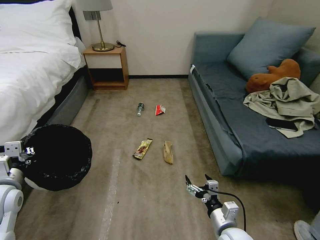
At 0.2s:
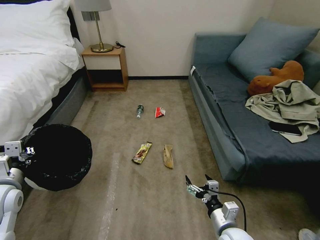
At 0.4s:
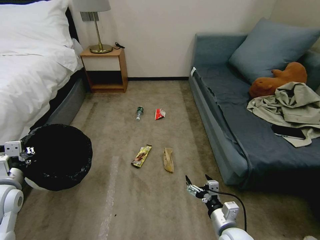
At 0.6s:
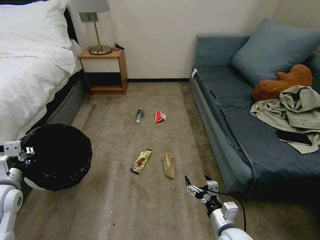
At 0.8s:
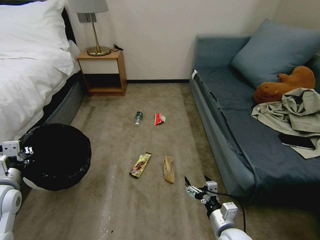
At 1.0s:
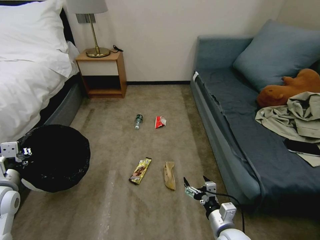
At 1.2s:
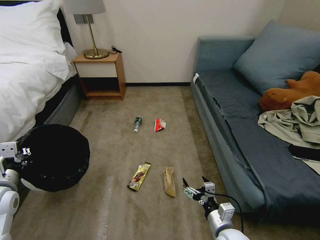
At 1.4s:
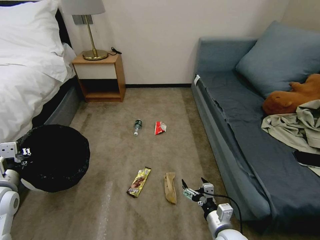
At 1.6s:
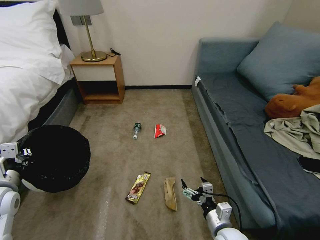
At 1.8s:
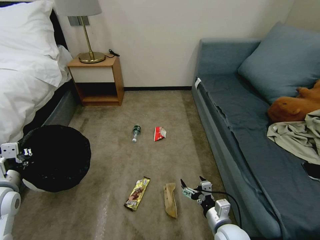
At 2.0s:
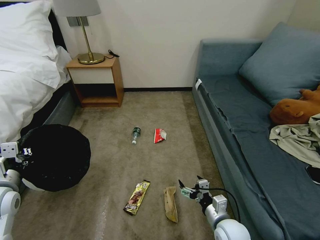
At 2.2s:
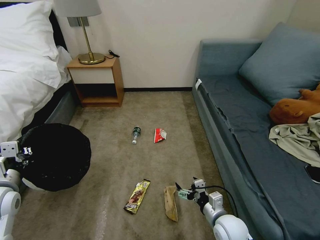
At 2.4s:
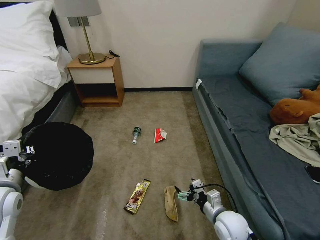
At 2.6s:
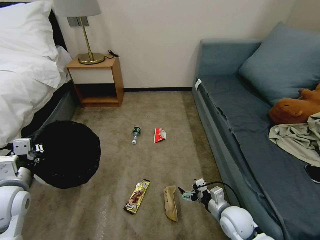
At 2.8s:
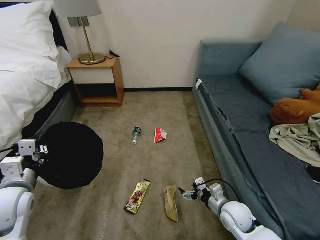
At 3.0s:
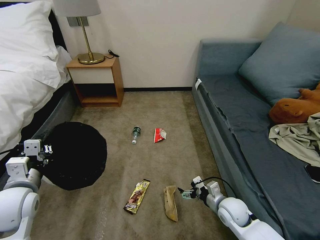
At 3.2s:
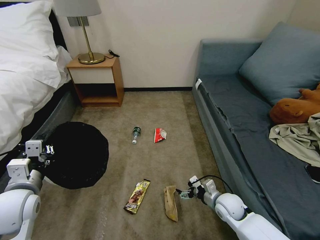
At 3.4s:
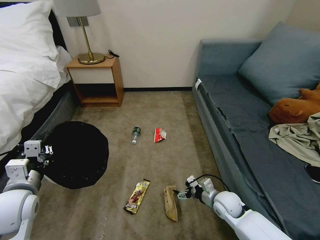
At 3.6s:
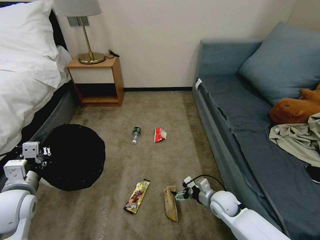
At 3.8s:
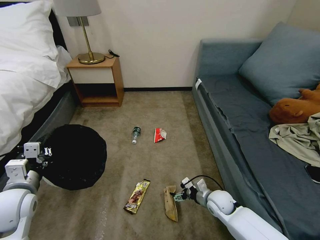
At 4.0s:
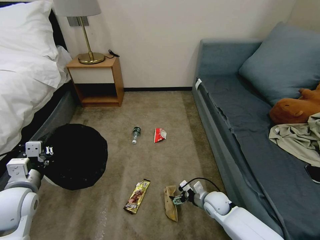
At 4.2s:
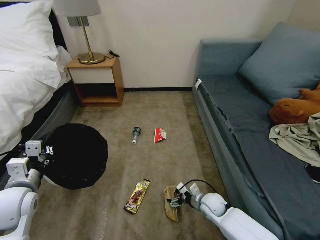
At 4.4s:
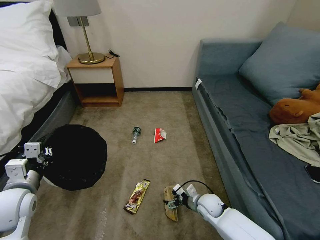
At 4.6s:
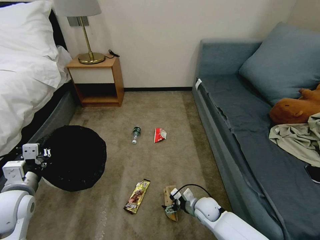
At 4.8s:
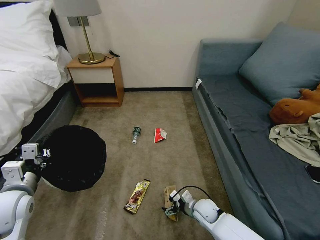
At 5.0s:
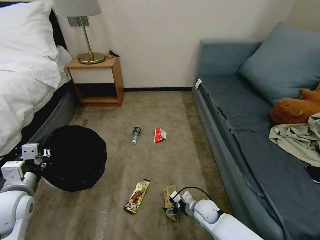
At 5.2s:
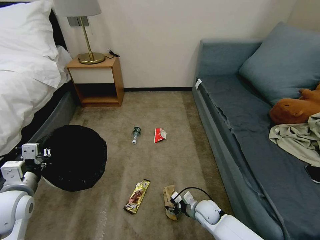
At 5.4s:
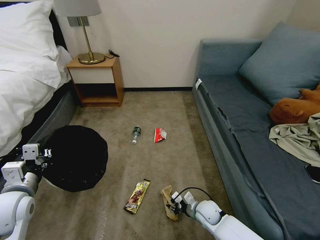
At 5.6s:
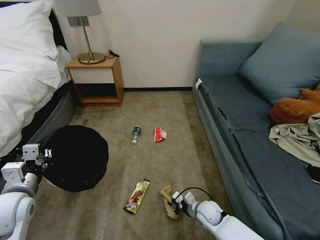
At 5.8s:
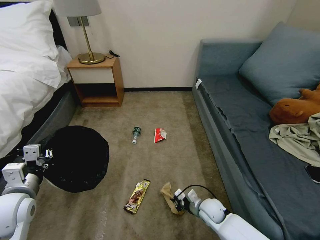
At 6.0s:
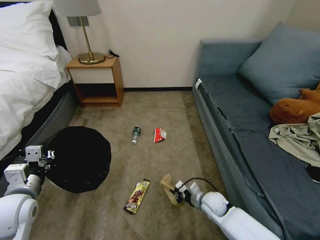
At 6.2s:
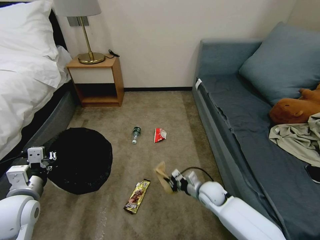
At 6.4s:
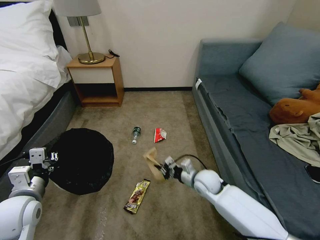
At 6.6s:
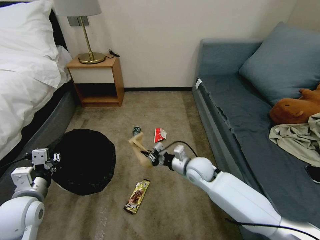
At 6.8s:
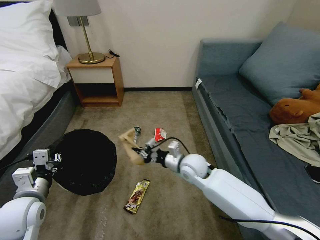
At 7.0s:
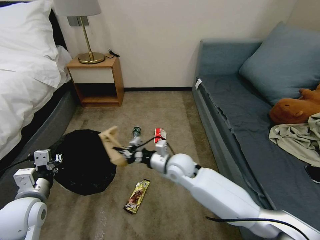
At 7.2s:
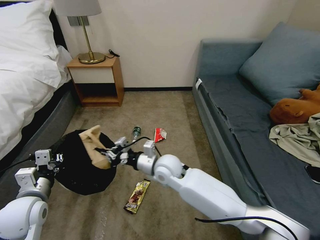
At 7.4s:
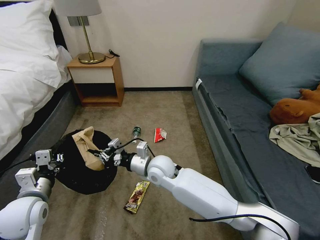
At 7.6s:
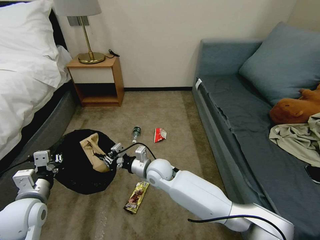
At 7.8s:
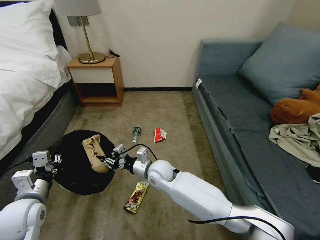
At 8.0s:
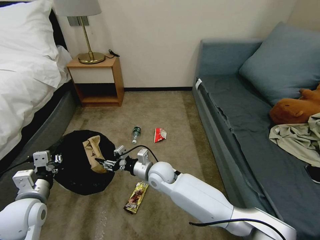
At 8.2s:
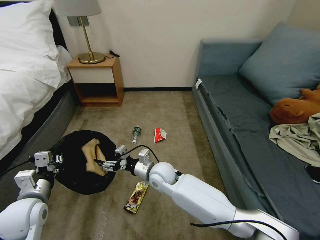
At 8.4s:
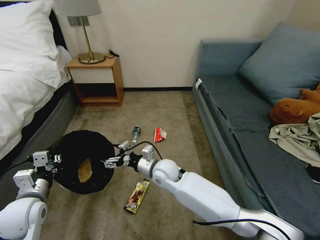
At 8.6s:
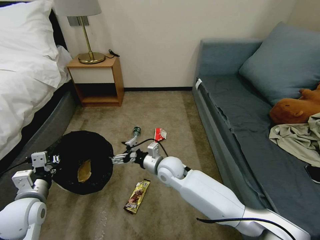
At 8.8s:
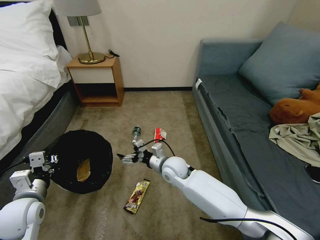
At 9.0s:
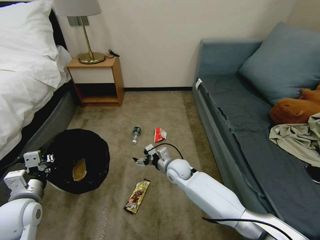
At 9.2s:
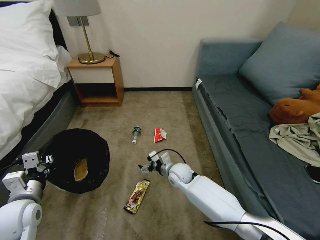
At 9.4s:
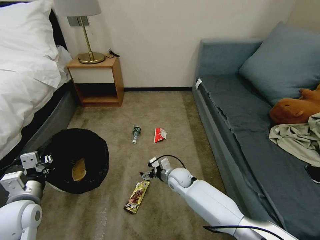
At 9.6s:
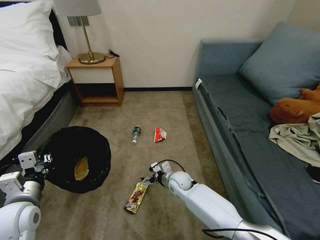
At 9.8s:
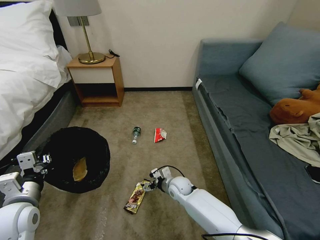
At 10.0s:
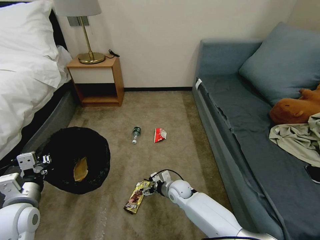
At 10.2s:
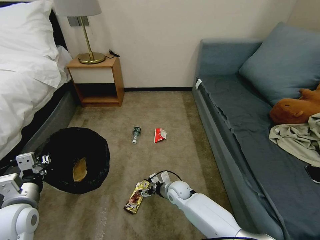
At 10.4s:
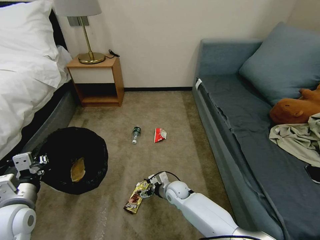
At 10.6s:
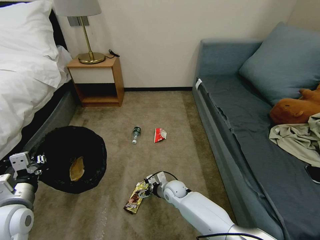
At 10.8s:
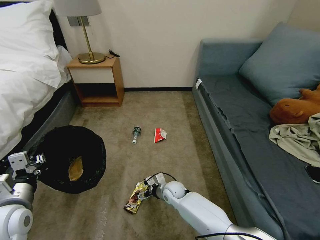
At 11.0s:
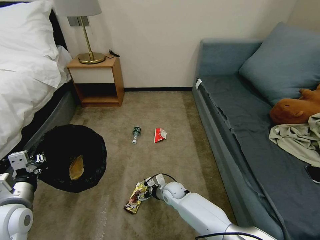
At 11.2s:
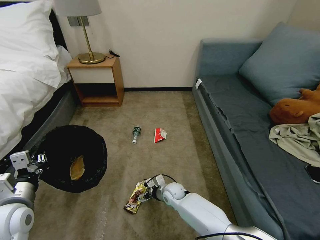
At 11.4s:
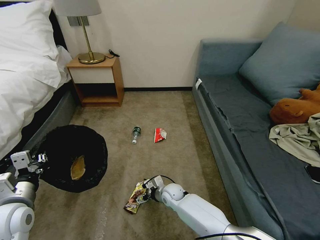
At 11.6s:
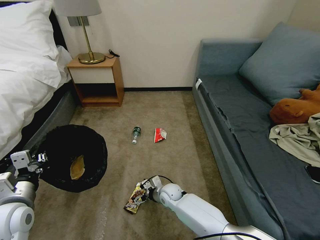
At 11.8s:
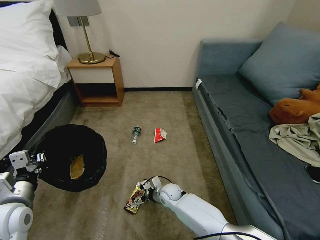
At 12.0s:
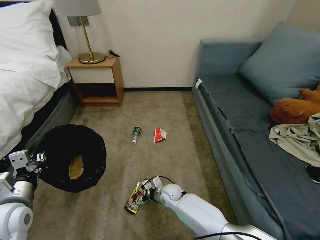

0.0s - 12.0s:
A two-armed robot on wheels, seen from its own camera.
Task of the whole recording: Pick up the trash bin, then pick up the garbage on the floor and place it into the trash bin.
1.6s - 3.0s: The right gripper is displaced forward by about 10 cm; the left gripper is displaced to the right by some 5 cm.
3.0s - 4.4s: The right gripper moves downward and to the left, roughly 10 cm.
4.4s - 6.0s: The right gripper closes its fingers.
6.0s - 7.6s: The right gripper shifts approximately 25 cm to the left and upward.
7.6s - 9.0s: The right gripper is displaced to the right by some 10 cm, and opens its fingers.
9.0s - 10.4s: The right gripper moves downward, approximately 10 cm.
10.4s - 12.0s: There are only small adjustments of the grippers.

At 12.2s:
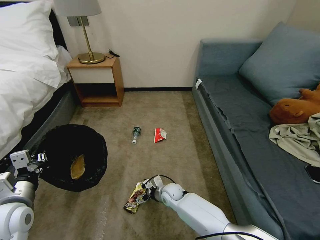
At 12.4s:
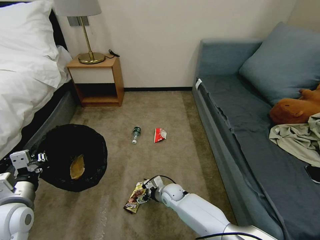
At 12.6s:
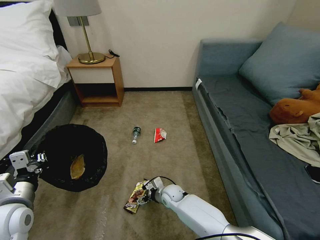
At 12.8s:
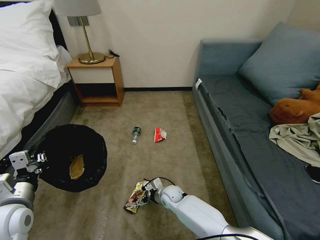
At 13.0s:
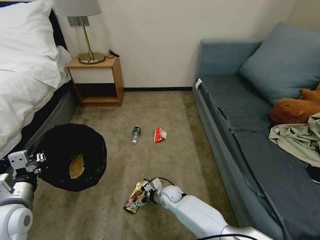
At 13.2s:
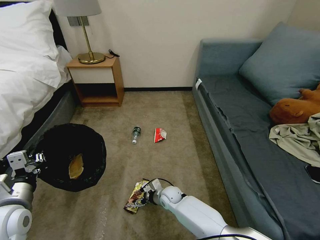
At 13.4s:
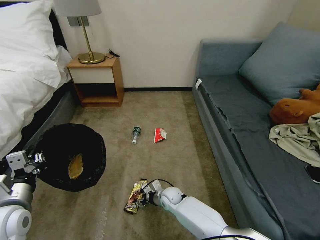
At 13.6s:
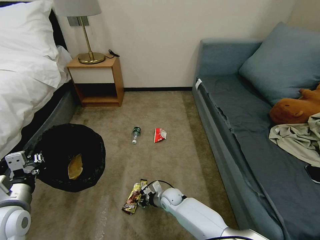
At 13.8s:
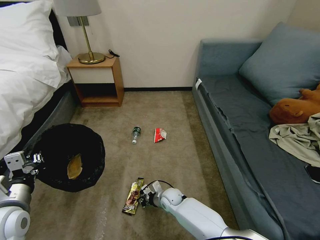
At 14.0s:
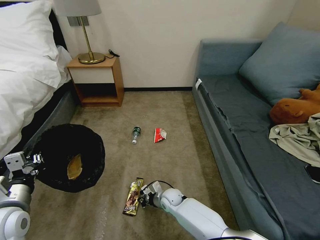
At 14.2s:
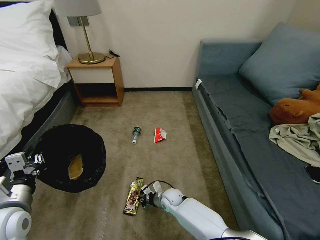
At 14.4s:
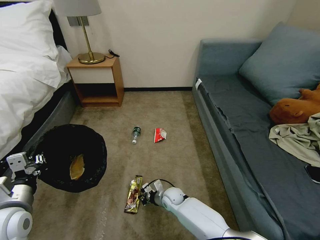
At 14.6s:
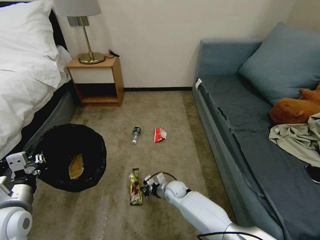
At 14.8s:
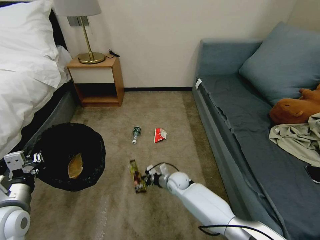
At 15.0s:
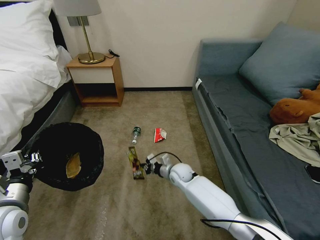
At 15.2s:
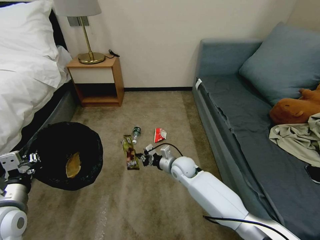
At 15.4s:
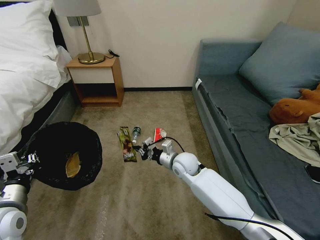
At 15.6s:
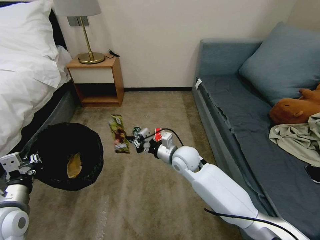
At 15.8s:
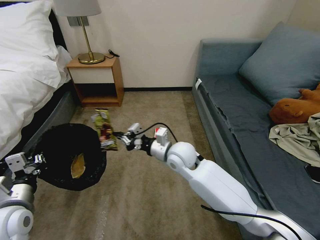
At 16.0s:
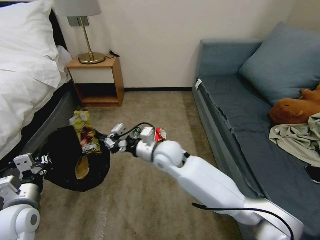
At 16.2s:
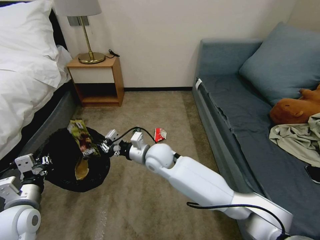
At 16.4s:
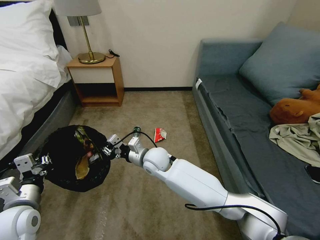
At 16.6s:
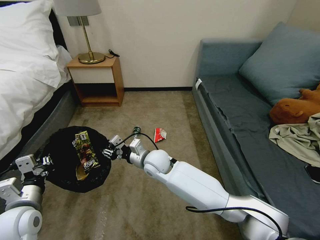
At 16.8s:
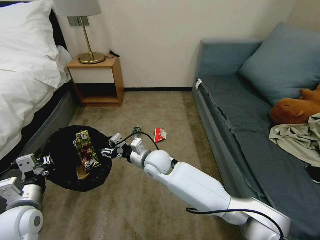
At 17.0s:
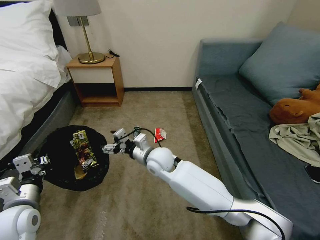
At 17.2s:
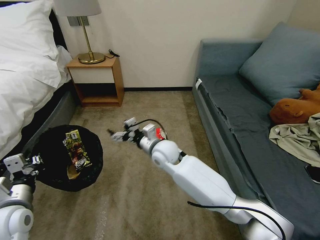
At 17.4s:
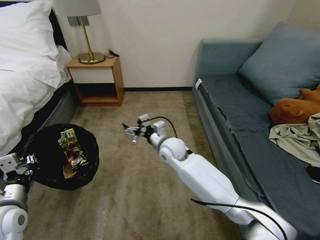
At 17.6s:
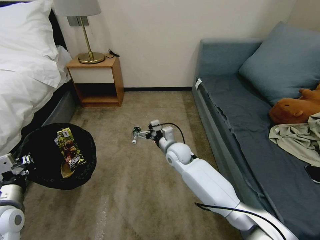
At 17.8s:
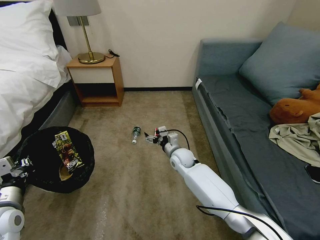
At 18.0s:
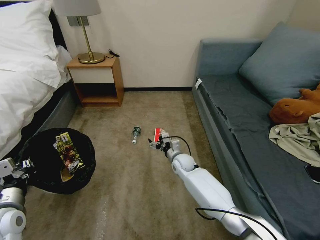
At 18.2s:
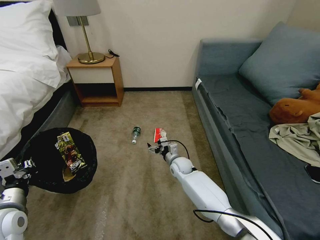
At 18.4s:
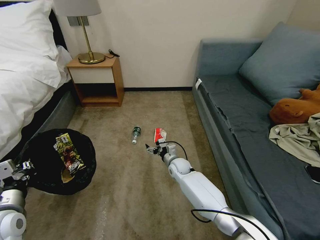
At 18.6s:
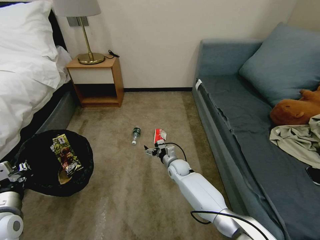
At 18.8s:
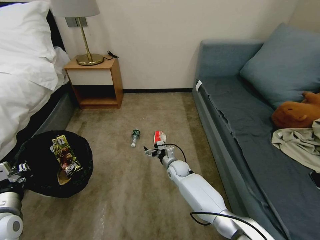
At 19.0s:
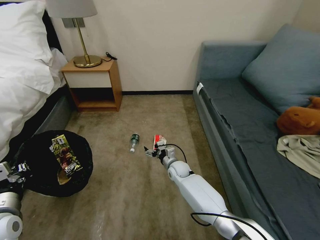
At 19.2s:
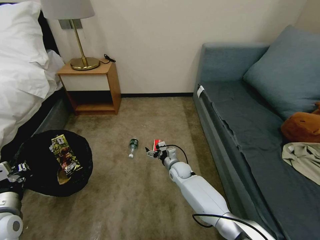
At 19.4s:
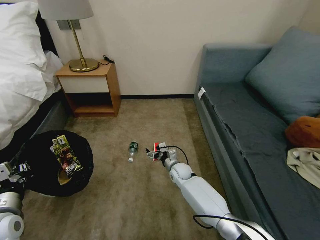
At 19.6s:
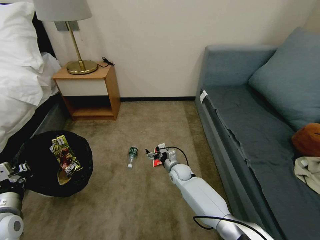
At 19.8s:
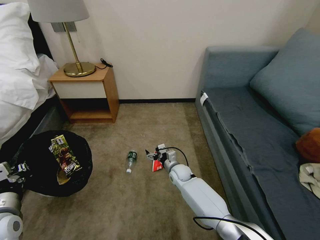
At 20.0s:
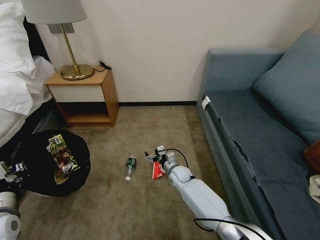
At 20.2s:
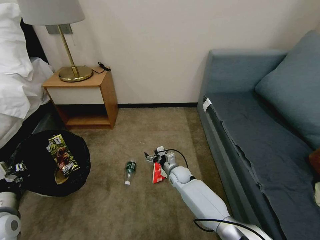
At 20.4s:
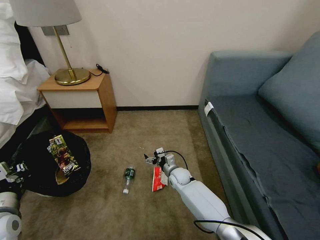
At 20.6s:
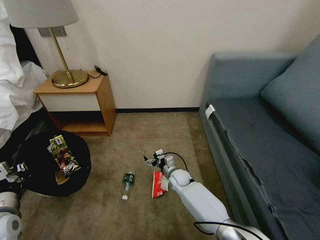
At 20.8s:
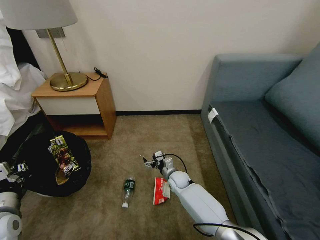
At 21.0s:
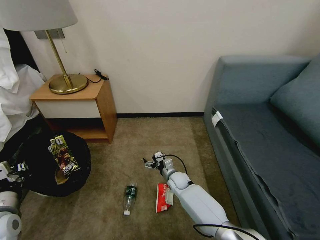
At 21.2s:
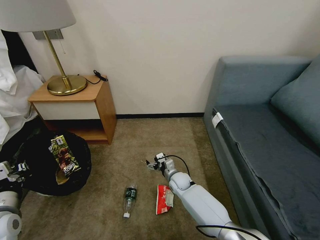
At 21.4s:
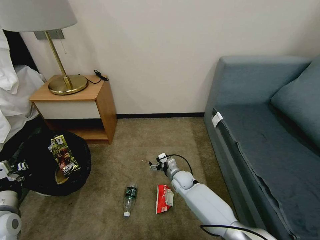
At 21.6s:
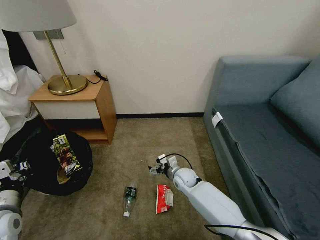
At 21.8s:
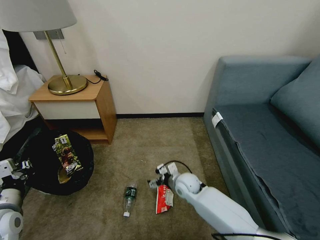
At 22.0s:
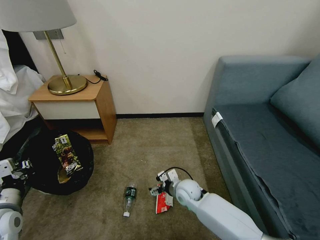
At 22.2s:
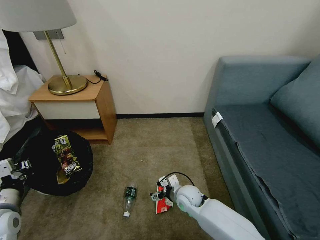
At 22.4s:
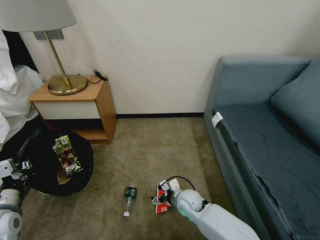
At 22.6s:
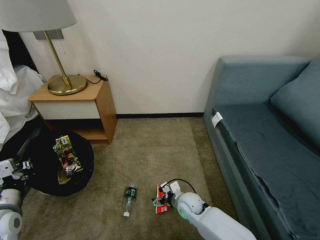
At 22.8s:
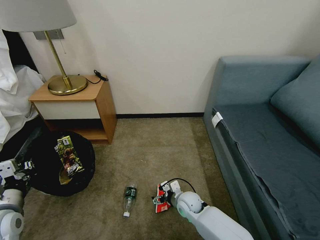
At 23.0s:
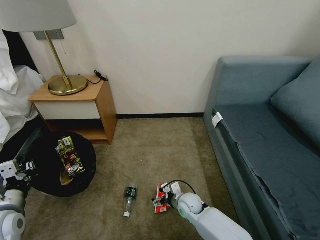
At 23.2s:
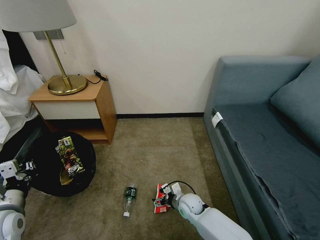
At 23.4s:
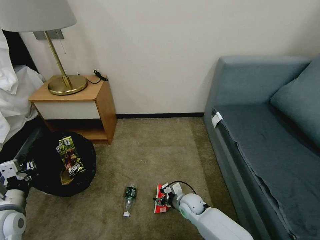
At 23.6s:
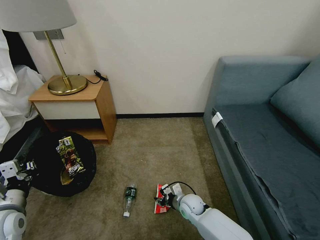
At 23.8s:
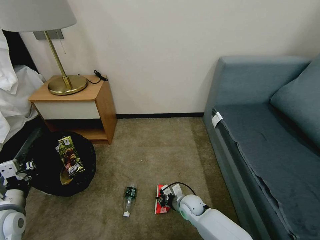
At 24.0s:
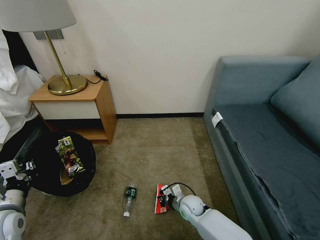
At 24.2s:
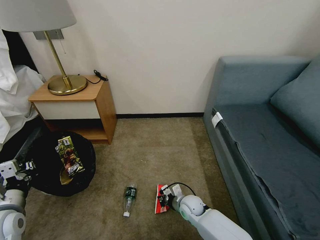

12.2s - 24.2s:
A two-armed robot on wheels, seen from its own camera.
Task of the whole recording: Pick up the trash bin, then pick up the garbage on the floor and place it into the trash bin.
12.2s - 13.8s: The right gripper closes.
13.8s - 15.2s: The right gripper is displaced upward and forward by roughly 15 cm.
15.2s - 16.6s: The right gripper goes roughly 15 cm to the left and upward, and opens up.
16.6s - 18.2s: The right gripper shifts roughly 20 cm downward, to the right and forward, and opens up.
21.2s - 22.6s: The right gripper heads backward, covering approximately 10 cm.
22.6s - 24.2s: The right gripper closes.
